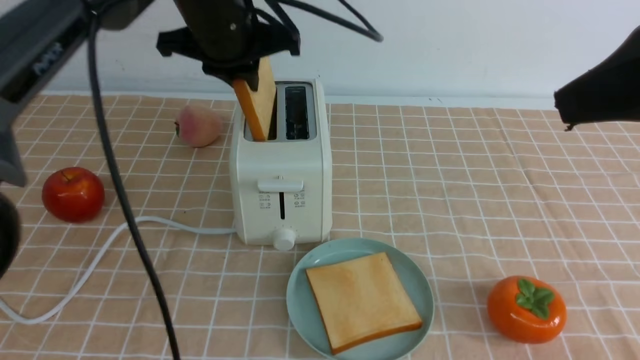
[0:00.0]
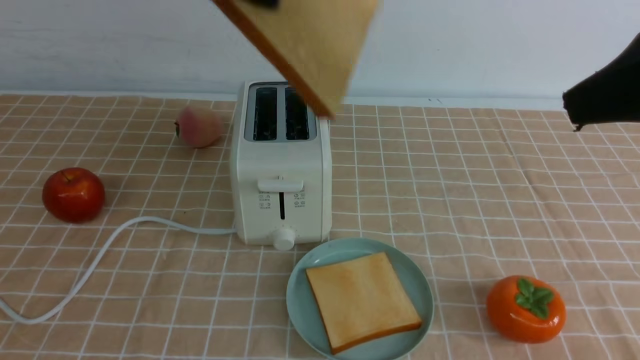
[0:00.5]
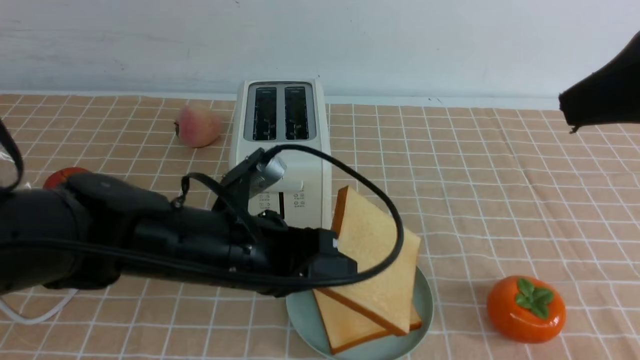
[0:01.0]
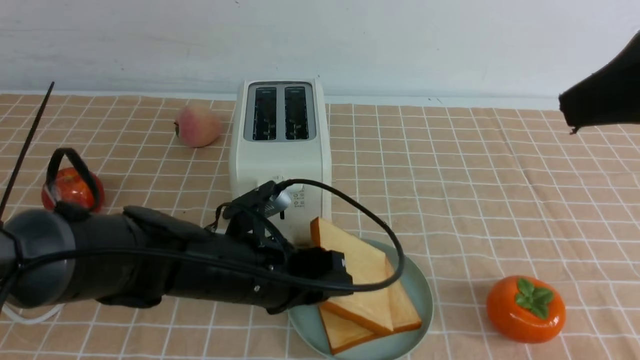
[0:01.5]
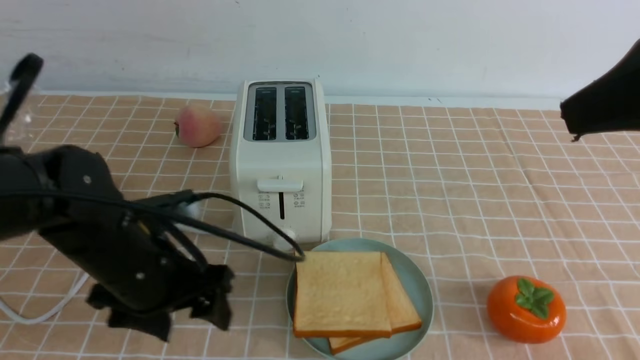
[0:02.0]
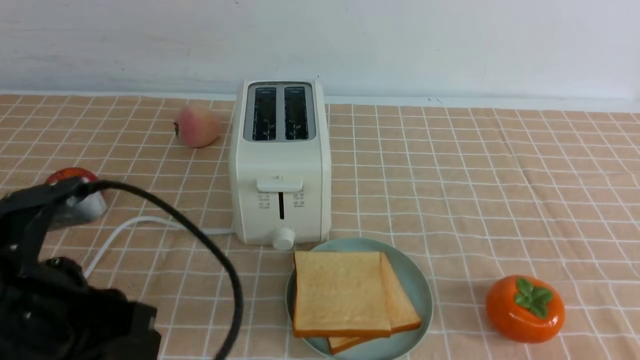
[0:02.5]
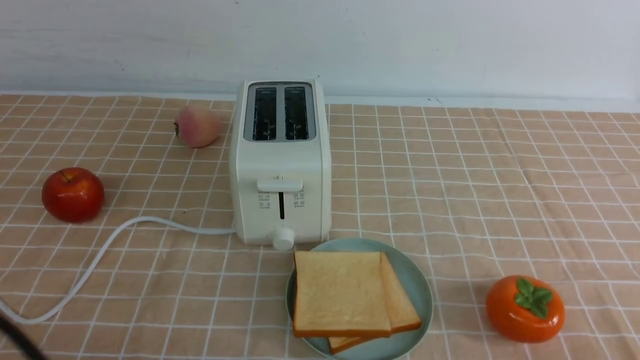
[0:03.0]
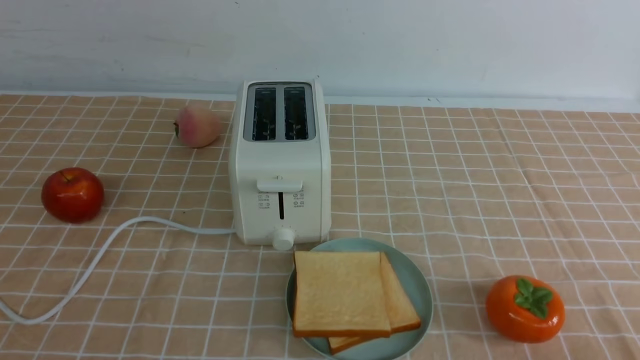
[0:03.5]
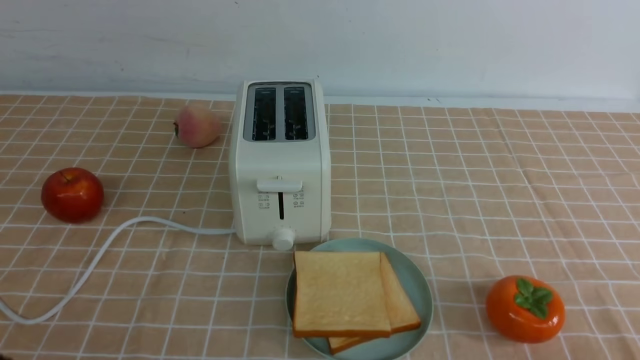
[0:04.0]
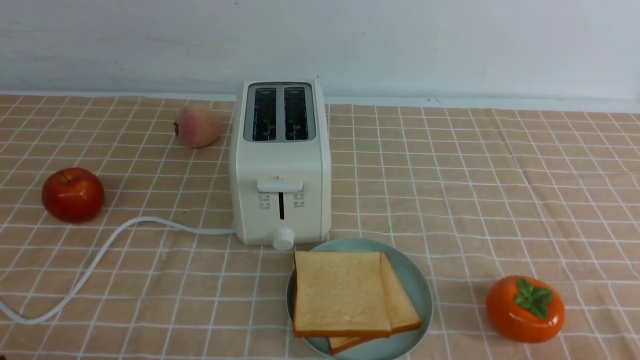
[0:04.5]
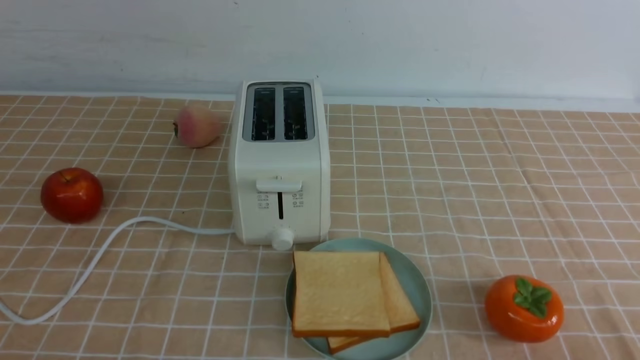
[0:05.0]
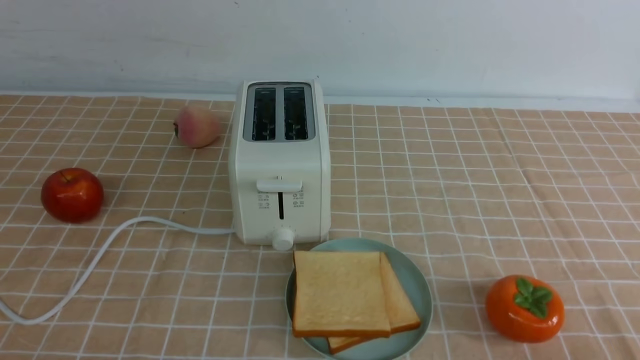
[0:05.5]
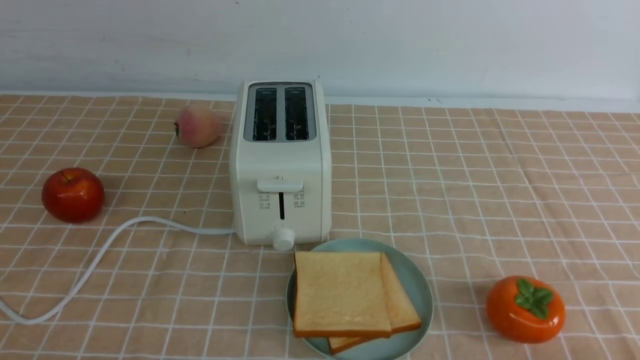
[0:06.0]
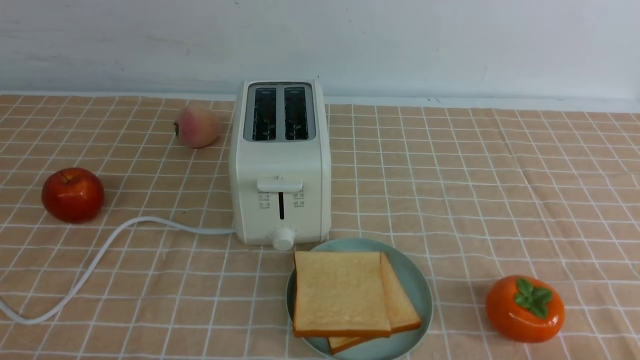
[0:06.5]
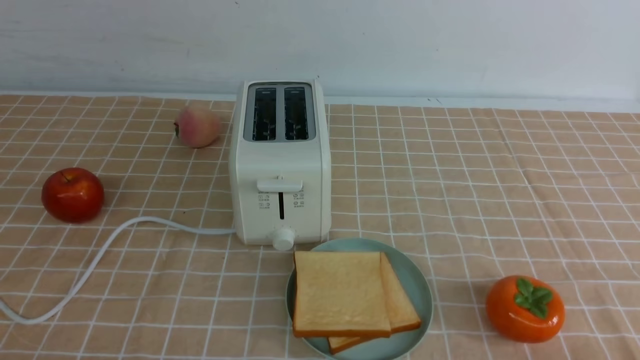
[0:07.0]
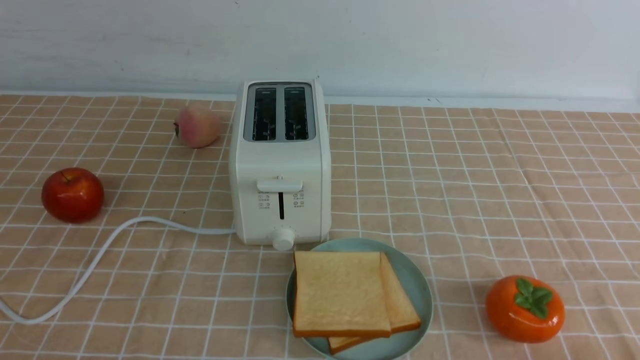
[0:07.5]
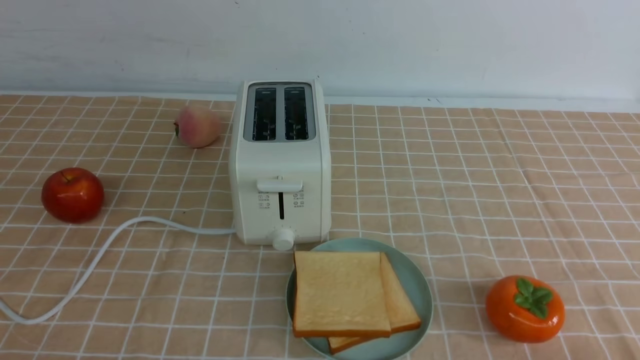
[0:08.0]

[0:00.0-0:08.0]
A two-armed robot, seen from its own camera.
Task of the whole recording: take toasted bread from bread machine on light coffee tablecloth place on plate.
Step, 0:00.5 to 0:01.5: use the left arm to put a slice of bread into the empty plate.
0:00.0 to 0:02.0: The left gripper is displaced downward and backward by some 25 cm, and opens its fingers.
0:02.0 to 0:04.0: The left gripper is displaced backward, upward and to the left by approximately 30 cm, and closes; the right gripper is displaced downward and backward by about 25 cm, and closes.

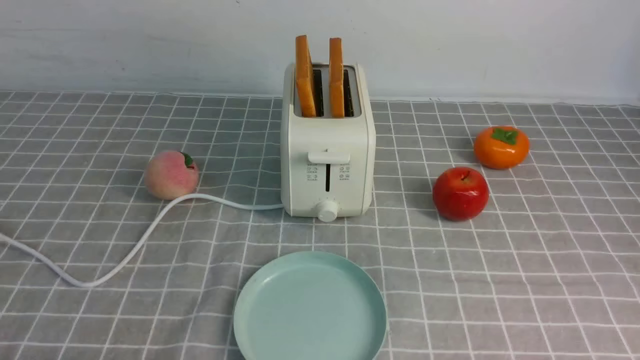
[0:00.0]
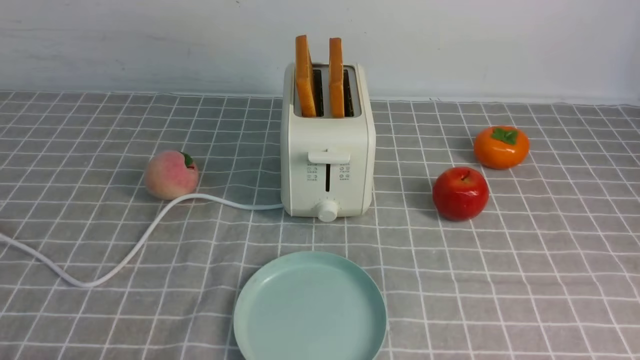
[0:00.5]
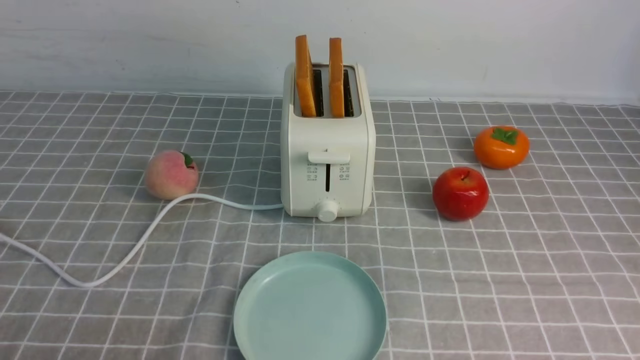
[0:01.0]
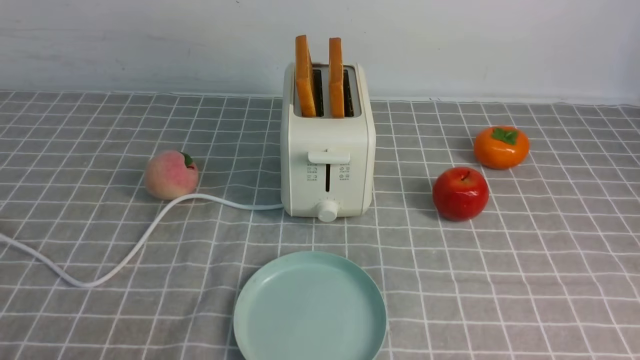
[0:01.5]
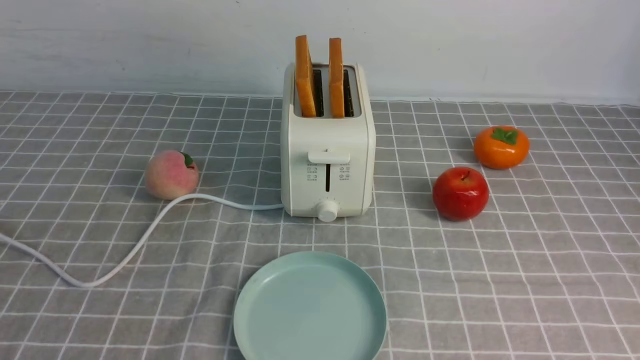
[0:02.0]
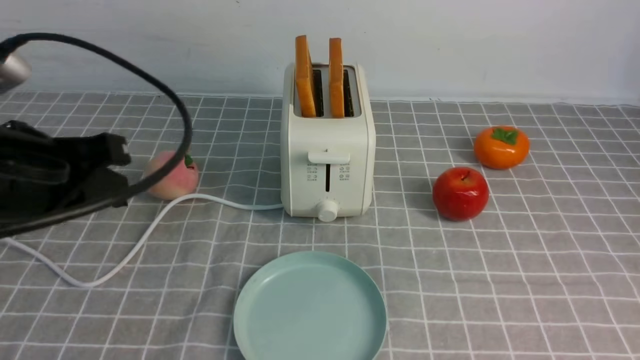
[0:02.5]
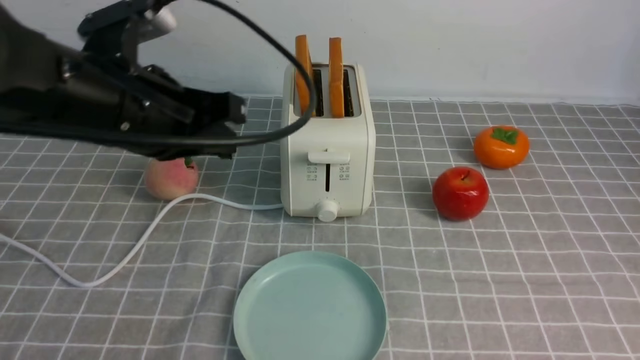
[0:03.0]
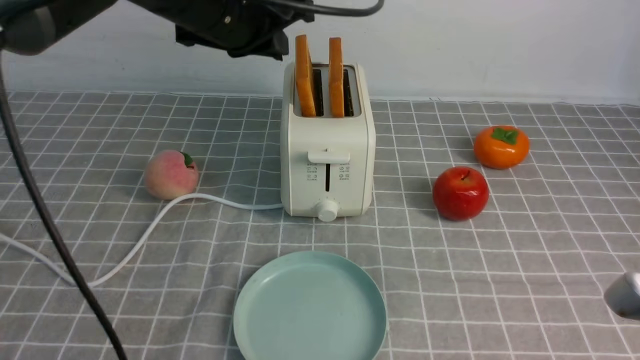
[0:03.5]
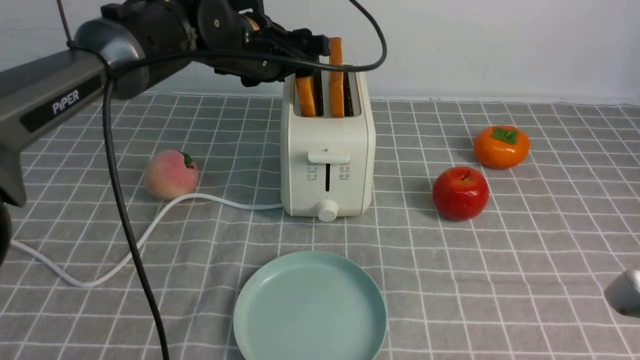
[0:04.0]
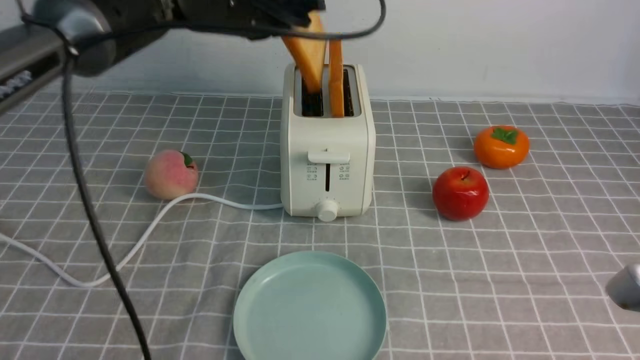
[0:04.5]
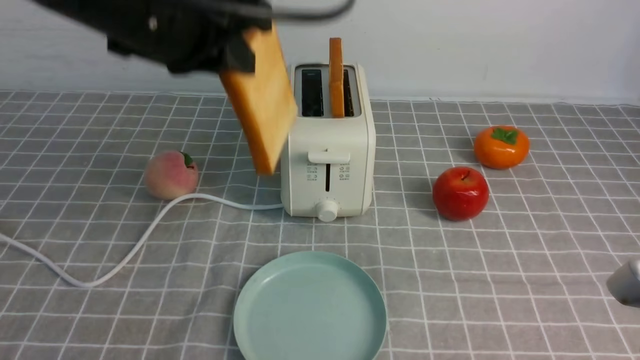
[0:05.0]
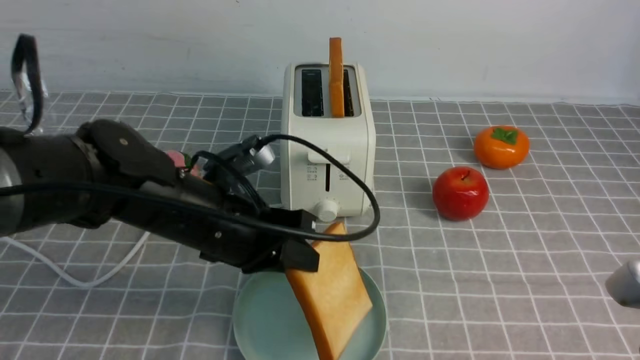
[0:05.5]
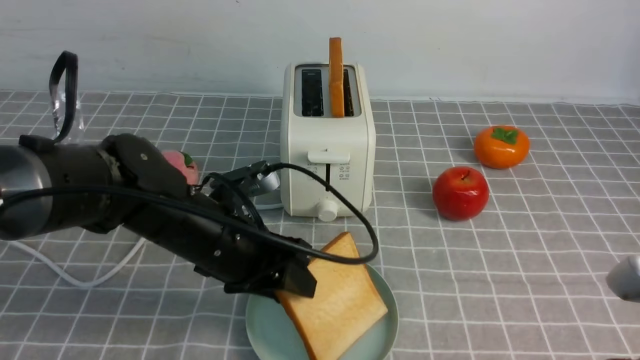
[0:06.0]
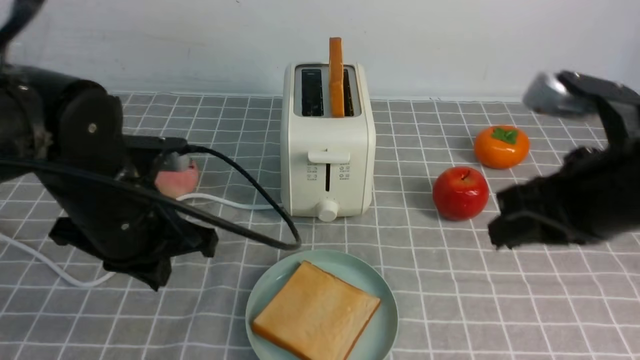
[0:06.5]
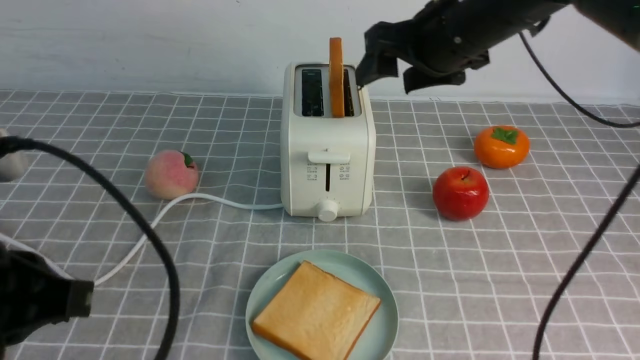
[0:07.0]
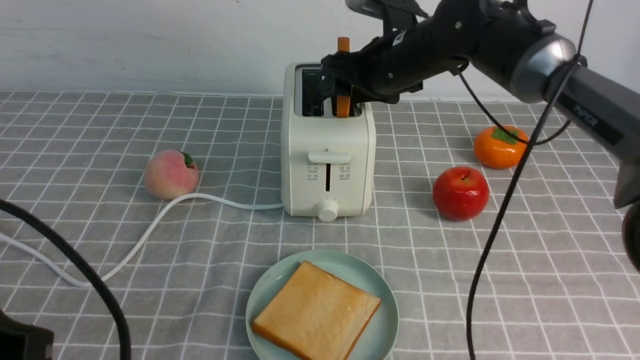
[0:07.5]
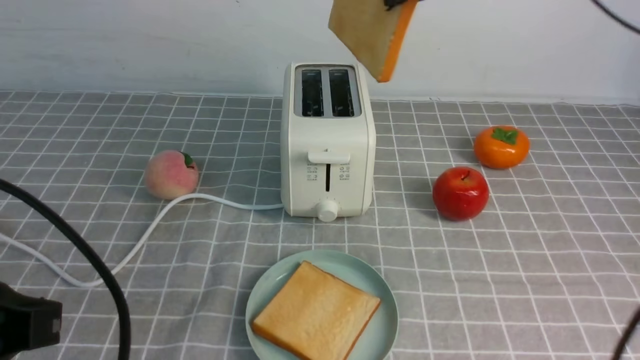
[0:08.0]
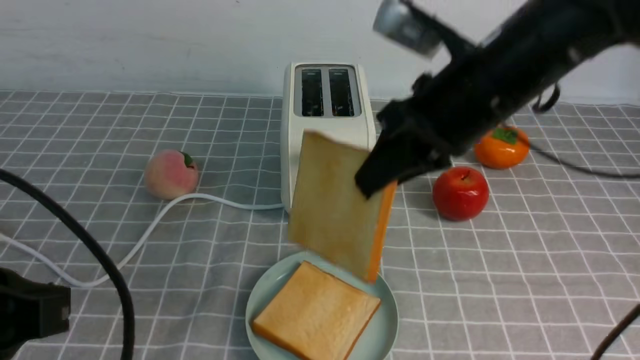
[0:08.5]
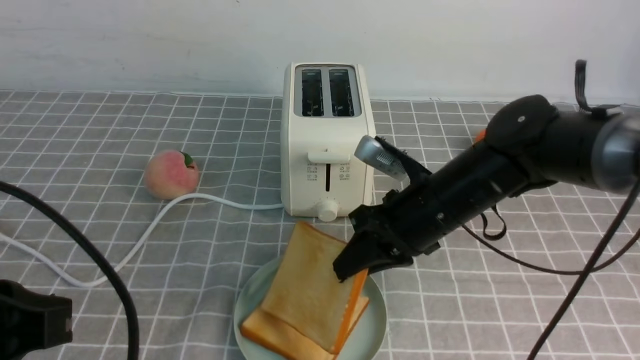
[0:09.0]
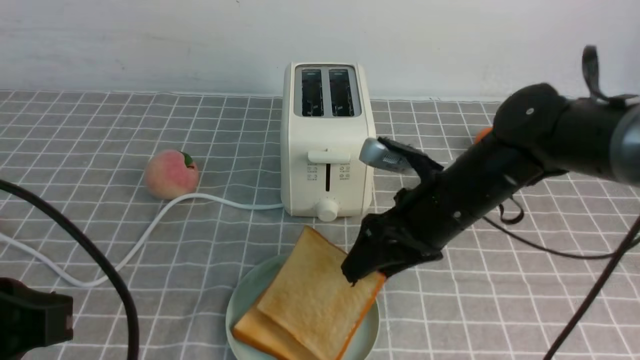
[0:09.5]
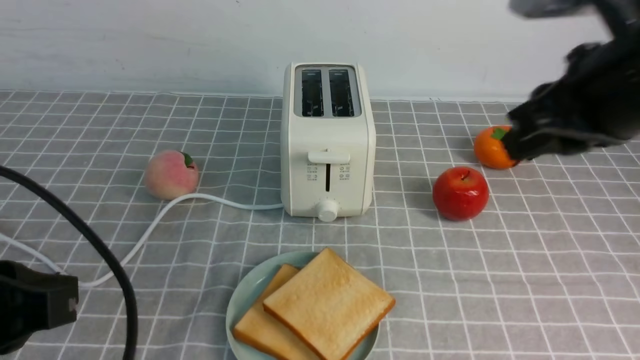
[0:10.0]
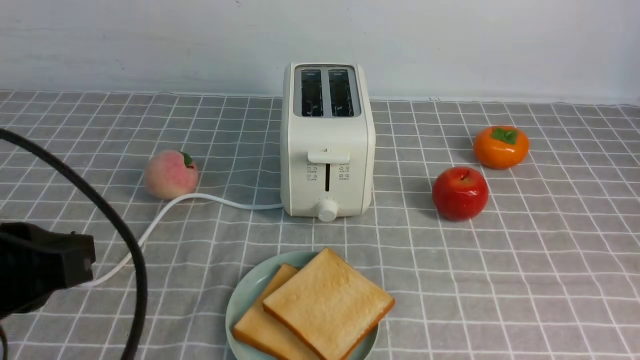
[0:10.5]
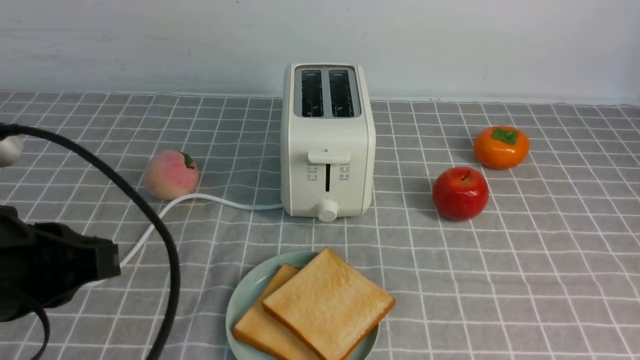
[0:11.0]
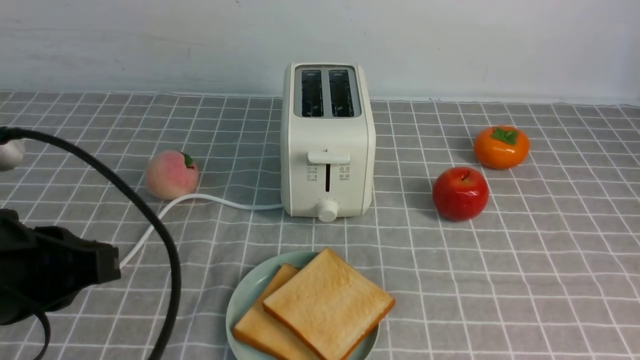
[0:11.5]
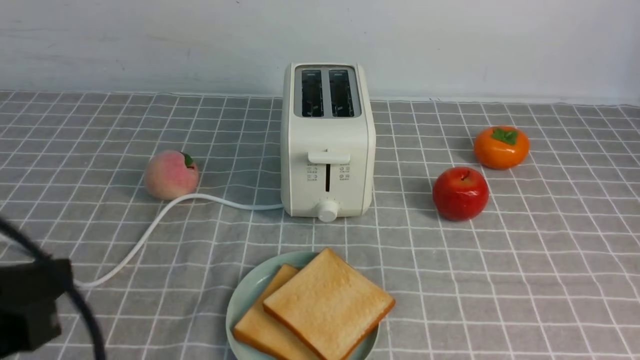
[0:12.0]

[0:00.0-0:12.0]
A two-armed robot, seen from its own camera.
Task of the whole recording: take toasted bread from bread machine on grey coffee table place on plate.
Step, 0:00.0 to 0:04.5: use the left arm to take out a slice of bread.
Step, 0:05.0 to 0:06.0: use the left arm to put a slice of bread into the empty plate.
Step, 0:06.5 to 0:07.5: use the right arm to take out a slice of bread.
Step, 0:08.0 to 0:09.5: use the right arm to put a slice of bread into the plate.
0:02.0 to 0:04.0: The right gripper travels forward and to the left by about 10 cm, and closes up; the left gripper goes some 40 cm forward and to the right, and opens its fingers.
0:04.0 to 0:06.0: The left gripper goes some 20 cm backward and downward, and closes, then opens again.
0:06.0 to 0:08.0: The right gripper heads forward and upward, covering approximately 30 cm, and opens, then closes once more. The left gripper is displaced backward, upward and to the left by approximately 25 cm, and closes its fingers.
0:08.0 to 0:10.0: The right gripper is displaced backward and to the right by about 15 cm, travels downward and back again, some 25 cm each way, and opens, then closes again.
0:10.0 to 0:12.0: The right gripper travels backward, downward and to the right by about 25 cm.
